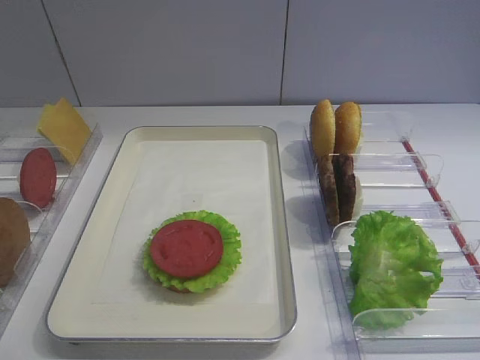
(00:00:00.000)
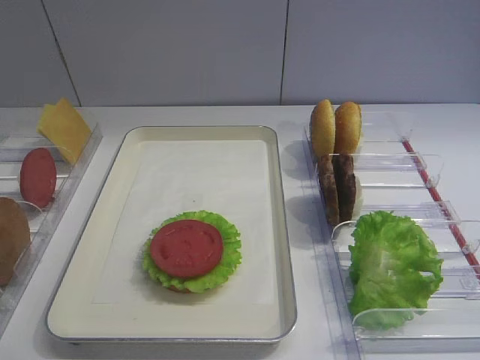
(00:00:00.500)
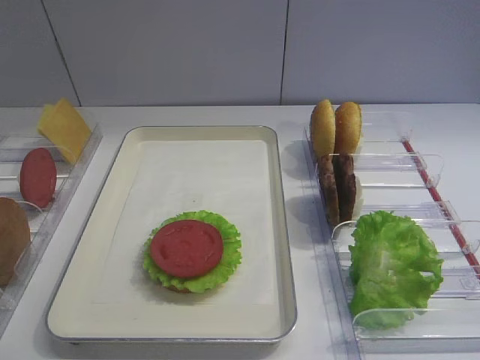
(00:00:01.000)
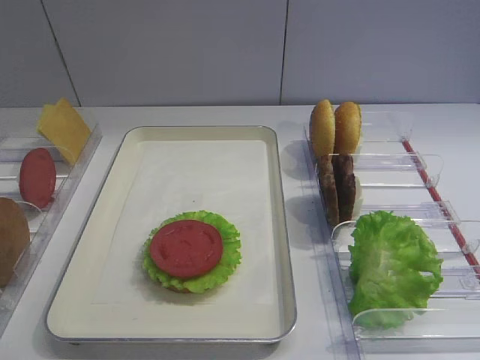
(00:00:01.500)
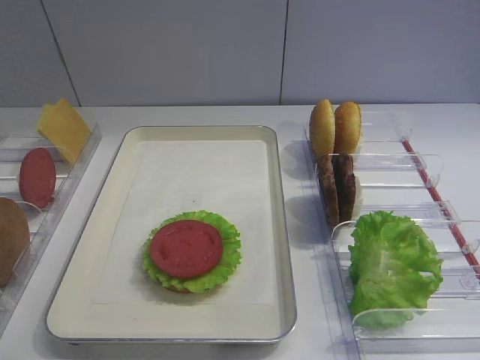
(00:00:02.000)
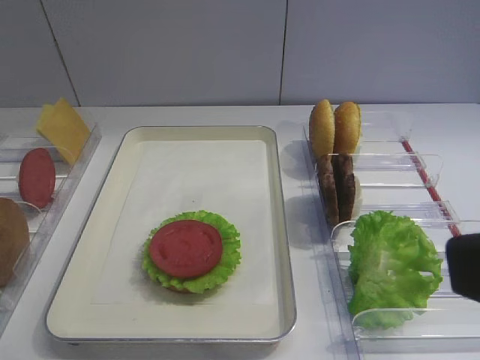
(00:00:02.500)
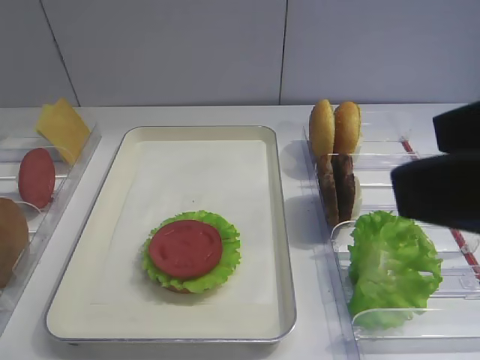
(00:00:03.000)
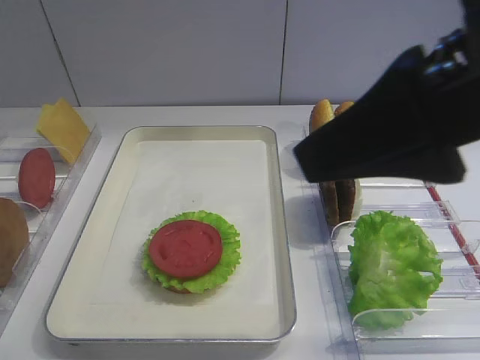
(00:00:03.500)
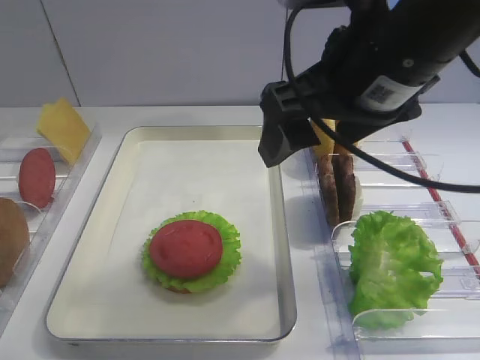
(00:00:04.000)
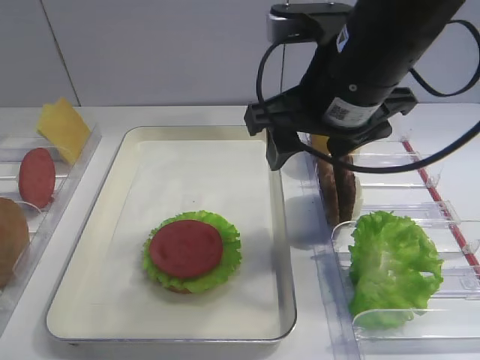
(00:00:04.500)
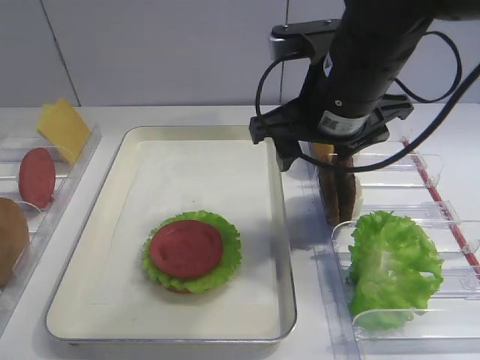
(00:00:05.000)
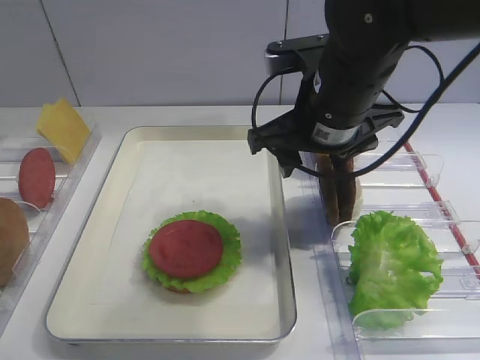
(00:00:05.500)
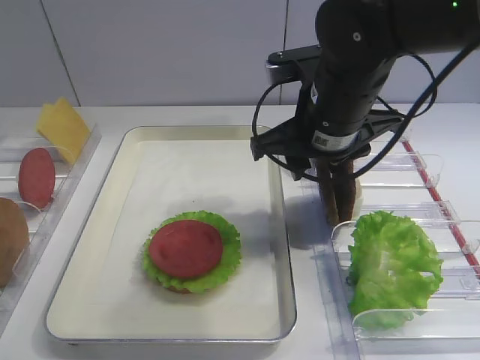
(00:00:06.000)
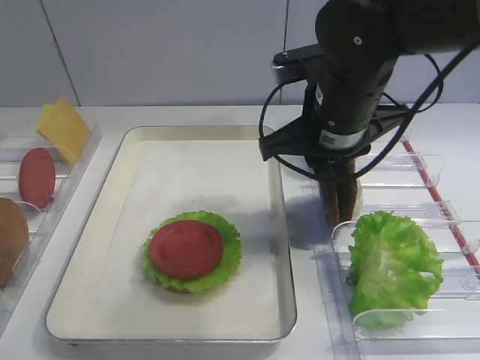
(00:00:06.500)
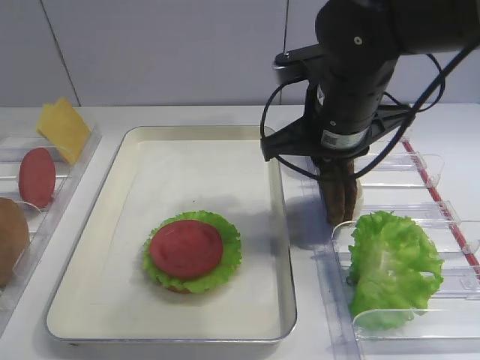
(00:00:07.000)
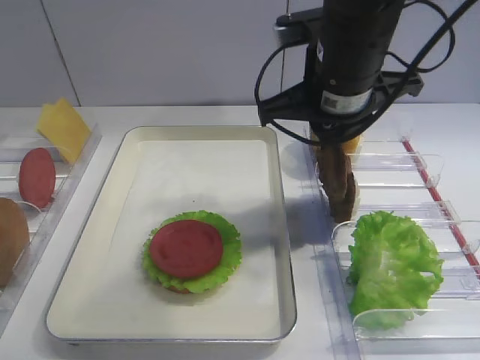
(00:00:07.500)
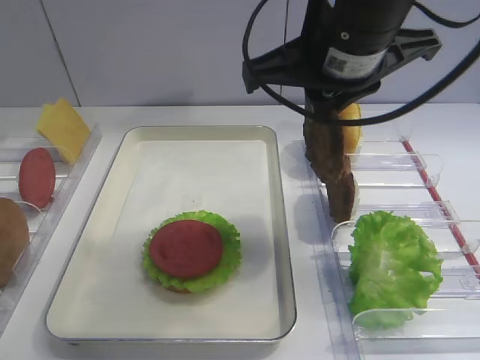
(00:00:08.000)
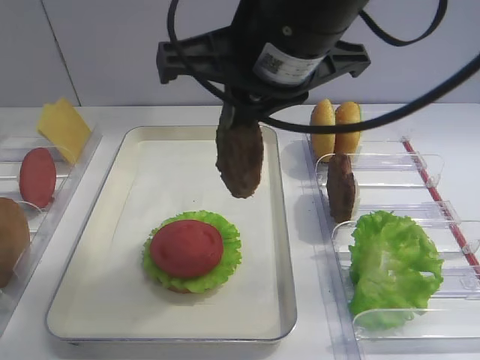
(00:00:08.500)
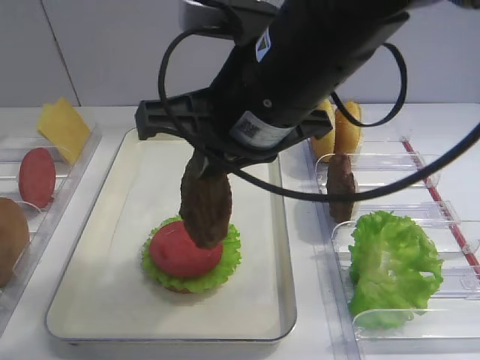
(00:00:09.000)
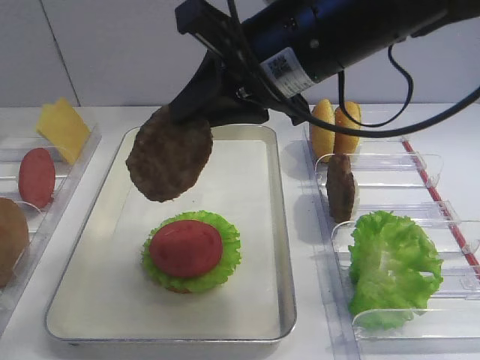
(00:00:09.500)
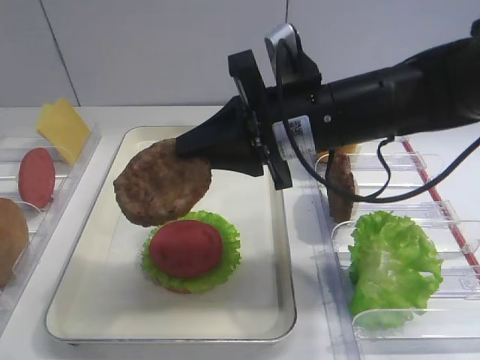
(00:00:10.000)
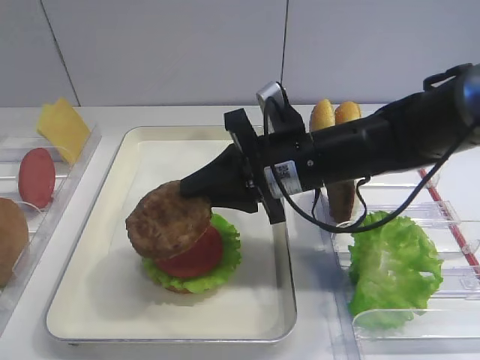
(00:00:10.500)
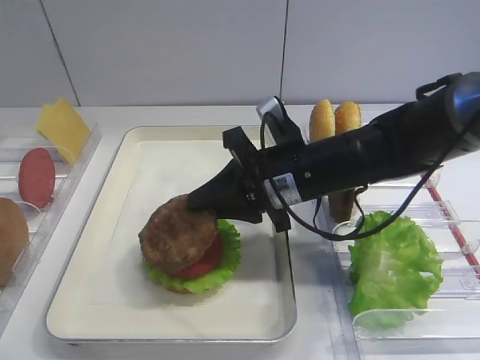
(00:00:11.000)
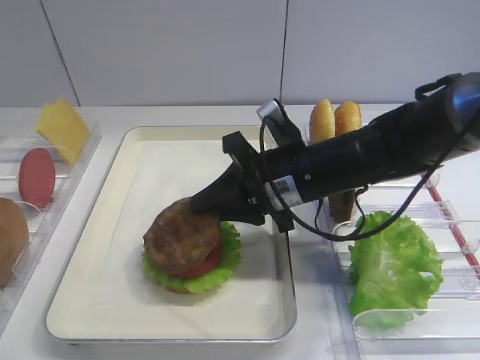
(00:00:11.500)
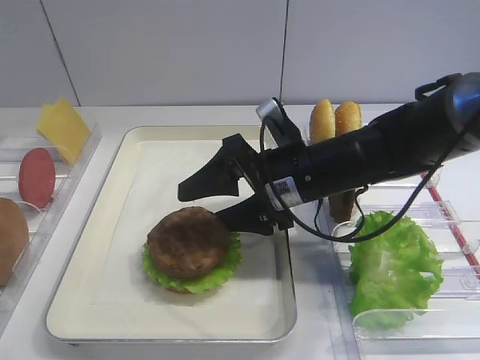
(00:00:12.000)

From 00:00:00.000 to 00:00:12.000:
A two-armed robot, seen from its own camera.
Step, from 00:00:00.000 to 00:00:07.500: Pick up the cutlet with the right gripper.
From 00:00:02.000 to 00:00:04.000: The right gripper travels forward and to the left by about 25 cm.
From 00:00:04.000 to 00:00:06.000: The right gripper travels downward and forward by about 10 cm, and closes its fingers.
From 00:00:06.000 to 00:00:08.000: The right gripper is displaced upward by roughly 10 cm, and closes up.
From 00:00:08.000 to 00:00:10.000: The right gripper is displaced downward by roughly 10 cm.
From 00:00:10.000 to 00:00:12.000: The right gripper goes approximately 10 cm downward, and opens its fingers.

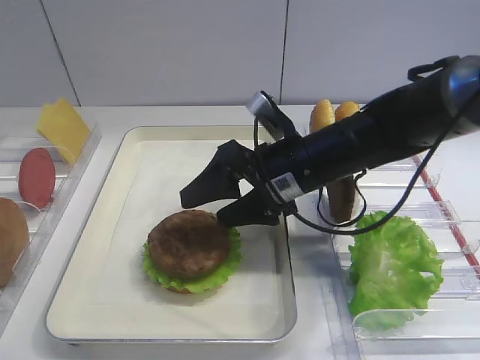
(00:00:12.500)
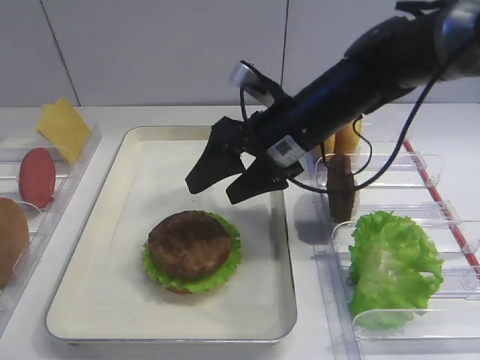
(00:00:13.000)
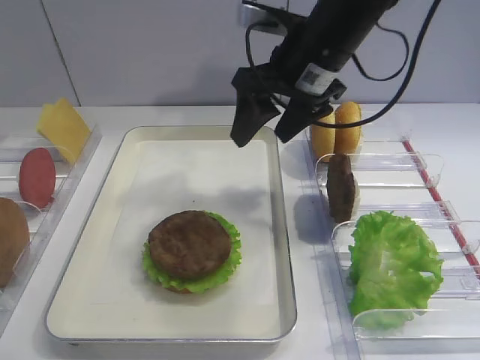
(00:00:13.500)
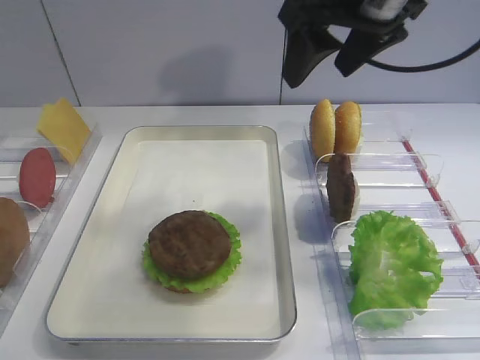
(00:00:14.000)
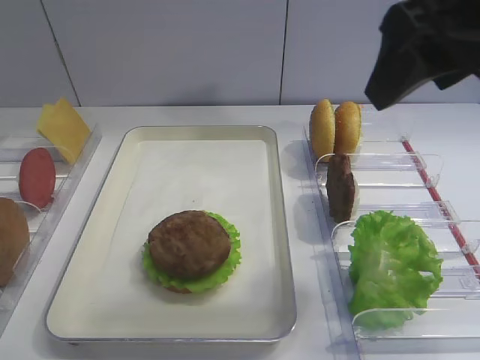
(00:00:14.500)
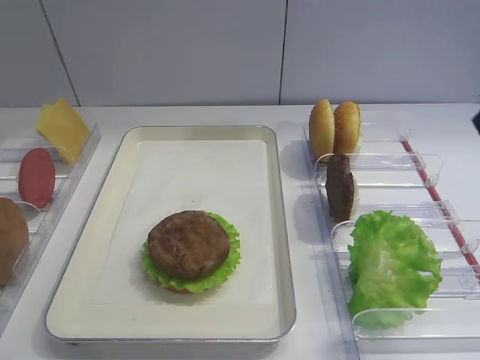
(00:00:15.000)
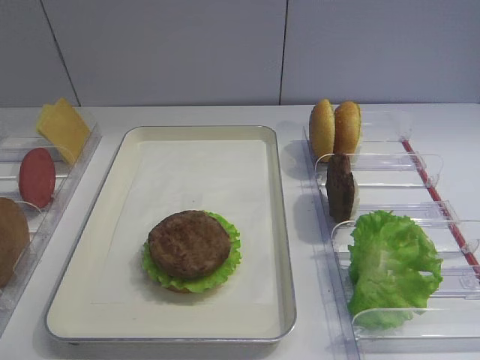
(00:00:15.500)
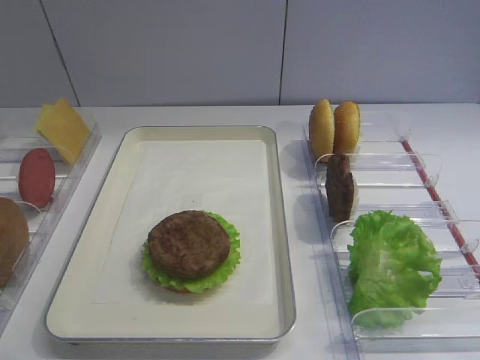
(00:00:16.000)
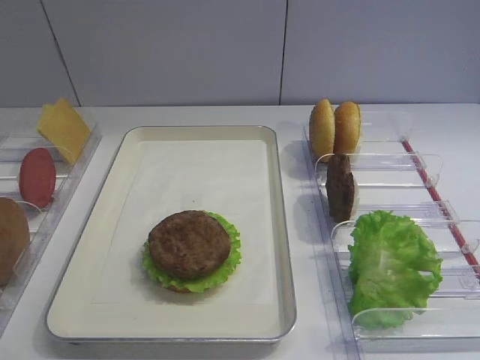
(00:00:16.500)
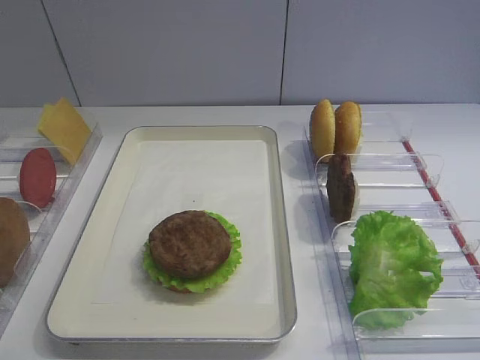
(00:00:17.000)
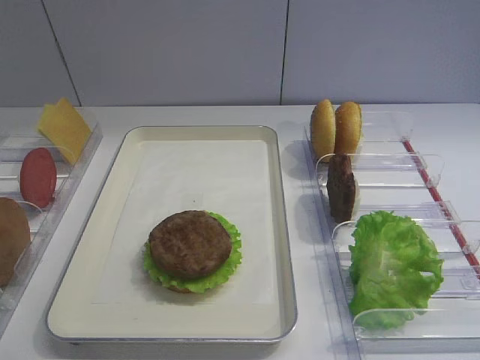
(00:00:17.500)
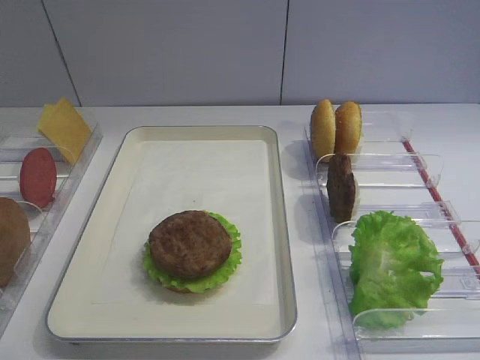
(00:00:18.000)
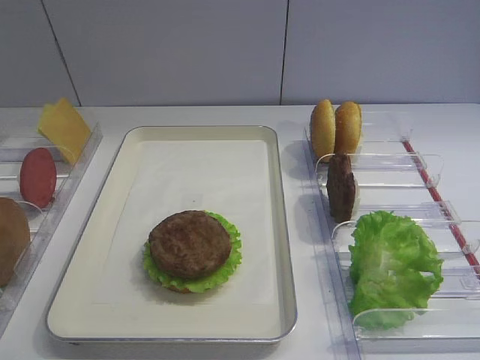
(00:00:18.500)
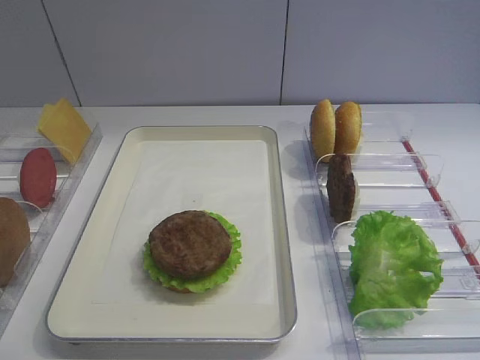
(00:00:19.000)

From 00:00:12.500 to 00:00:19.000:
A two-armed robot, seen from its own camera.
From 00:00:12.500 to 00:00:14.500: The right gripper shifts approximately 25 cm upward and to the right.
From 00:00:14.500 to 00:00:17.000: The right gripper heads backward, downward and to the right, covering about 30 cm.
From 00:00:17.000 to 00:00:19.000: The two grippers keep their place.
